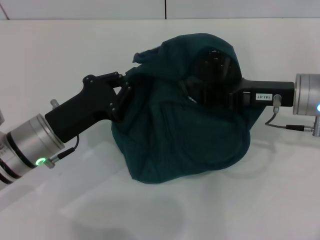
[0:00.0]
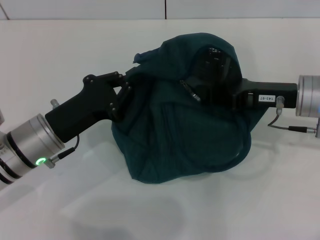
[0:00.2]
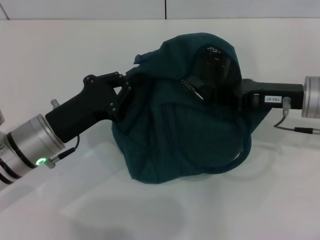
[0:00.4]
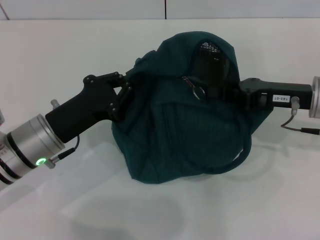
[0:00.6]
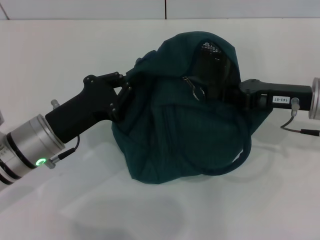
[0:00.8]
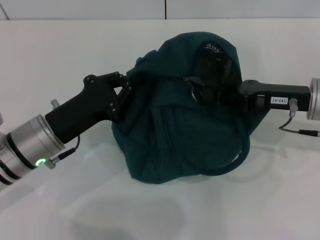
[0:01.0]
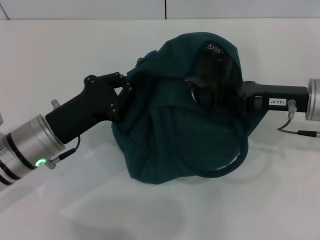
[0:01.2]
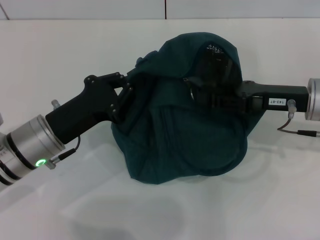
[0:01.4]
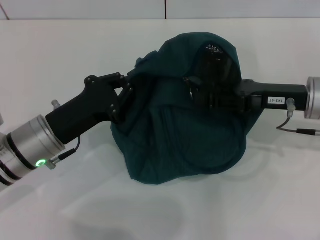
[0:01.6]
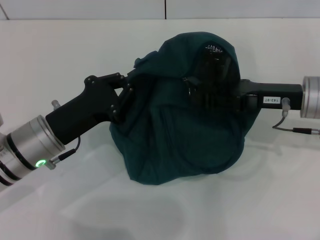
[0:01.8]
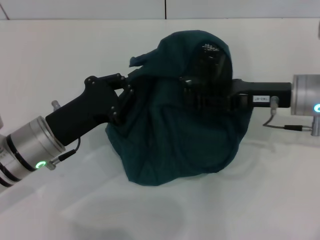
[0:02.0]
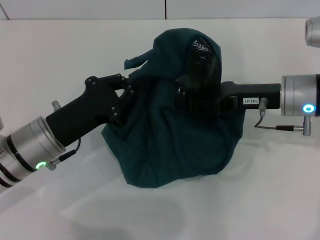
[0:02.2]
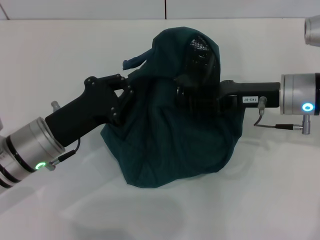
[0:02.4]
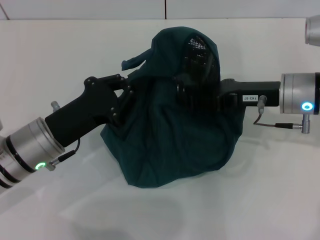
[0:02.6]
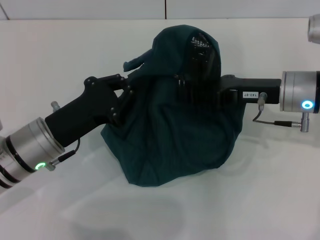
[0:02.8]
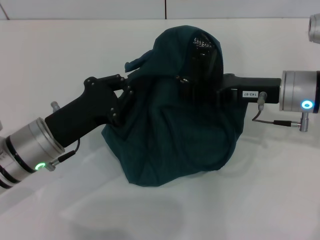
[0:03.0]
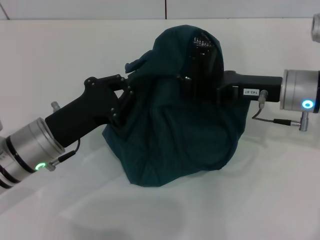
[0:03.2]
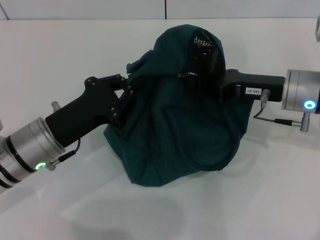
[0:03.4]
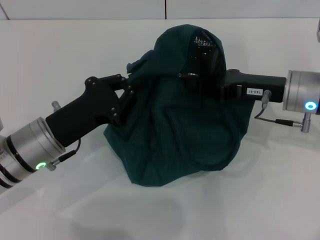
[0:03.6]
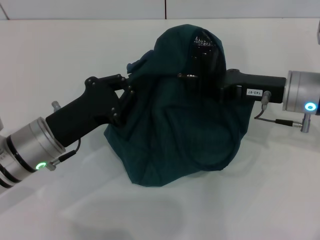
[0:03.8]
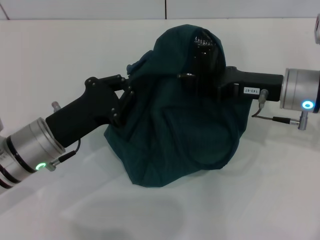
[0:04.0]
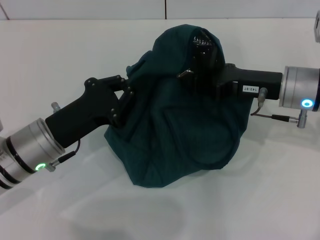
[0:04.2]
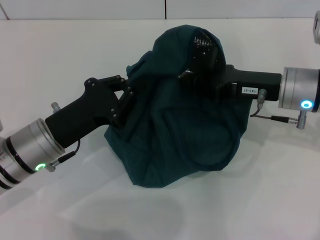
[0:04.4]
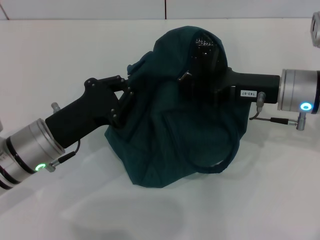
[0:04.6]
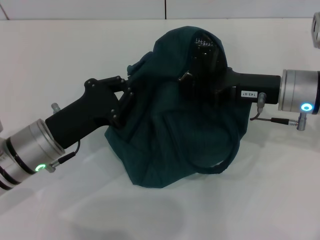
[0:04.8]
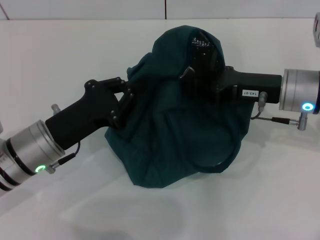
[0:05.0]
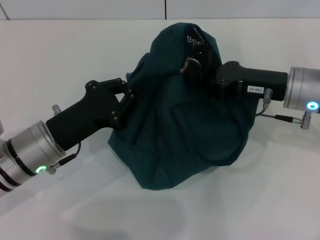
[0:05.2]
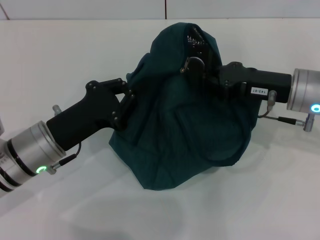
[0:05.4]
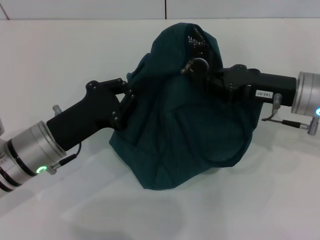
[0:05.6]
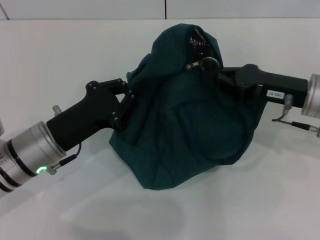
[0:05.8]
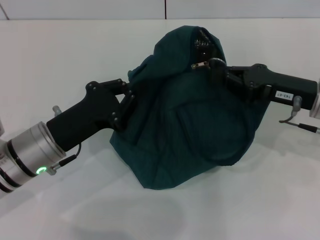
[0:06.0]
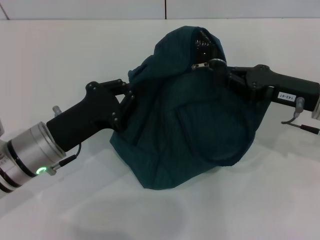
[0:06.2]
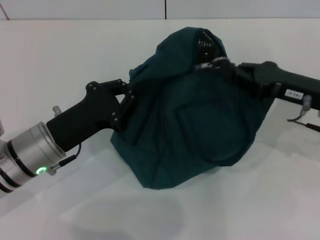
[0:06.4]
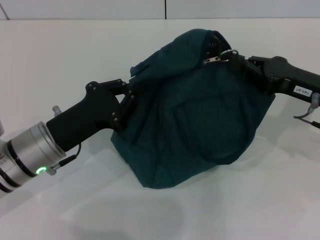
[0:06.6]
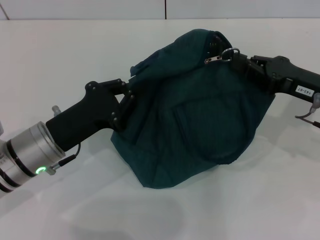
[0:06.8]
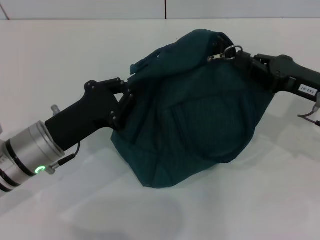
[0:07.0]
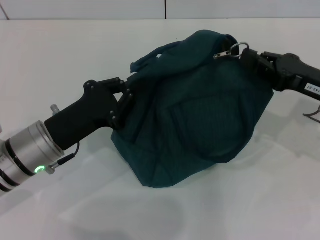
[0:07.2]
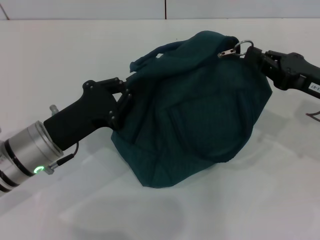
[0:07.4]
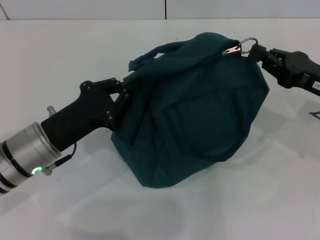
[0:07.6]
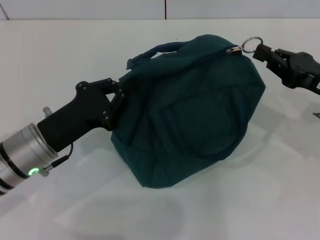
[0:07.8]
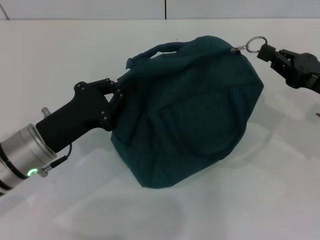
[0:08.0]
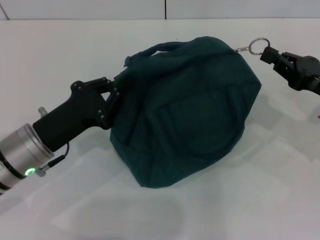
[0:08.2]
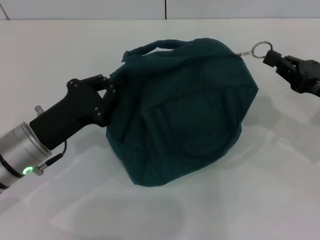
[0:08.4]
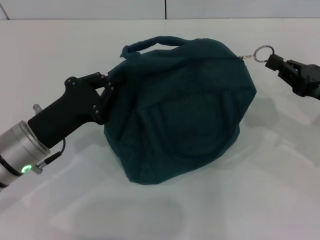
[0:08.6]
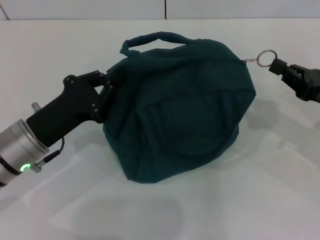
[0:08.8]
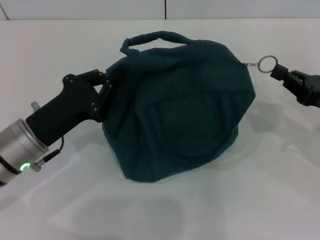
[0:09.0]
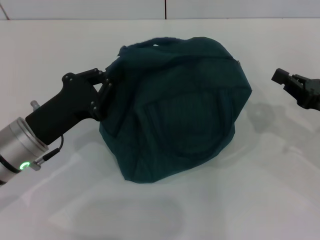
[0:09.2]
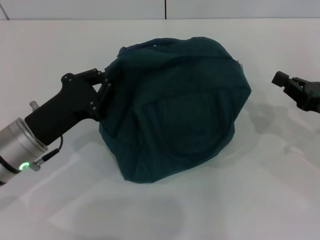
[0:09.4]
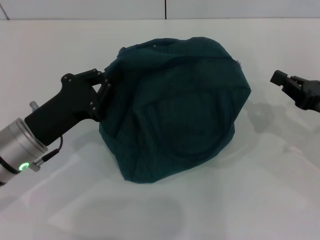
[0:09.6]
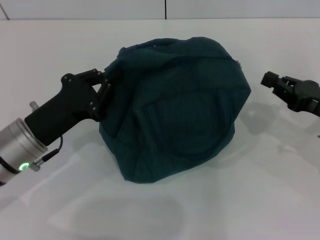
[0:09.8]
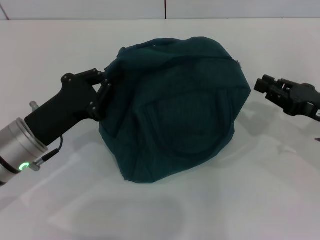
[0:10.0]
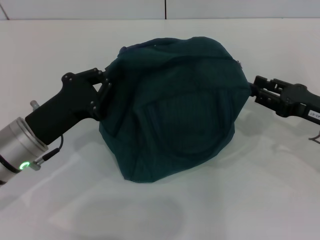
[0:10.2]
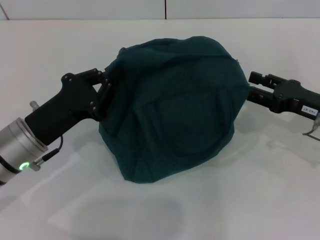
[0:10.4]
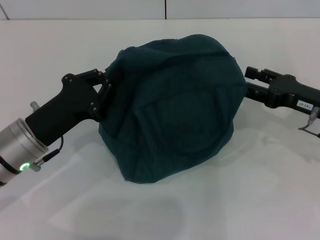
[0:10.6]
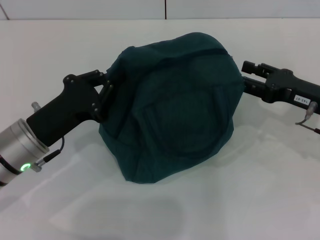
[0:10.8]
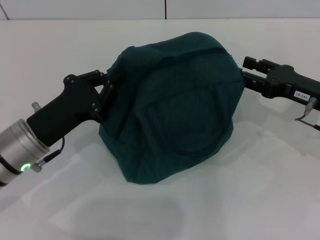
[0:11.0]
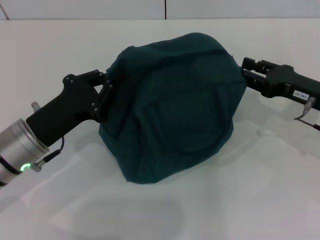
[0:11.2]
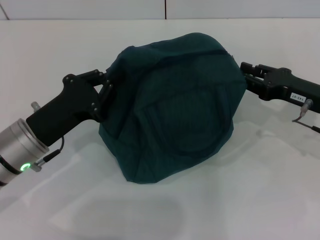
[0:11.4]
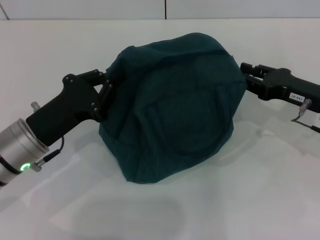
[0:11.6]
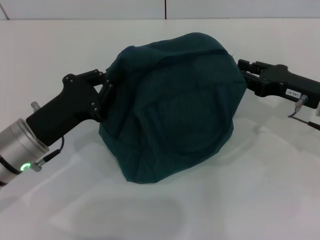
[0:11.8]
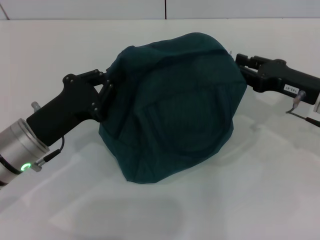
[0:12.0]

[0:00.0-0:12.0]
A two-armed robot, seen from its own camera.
0.0 to 6.0 s: The grippers make only small movements.
6.0 to 7.6 s: The grippers stay close to where they were, moving slightly.
7.6 to 9.0 s: The grippers move only a little.
9.0 to 10.4 s: The right gripper opens its fingers.
10.4 to 12.0 s: There are only small adjustments of the grippers.

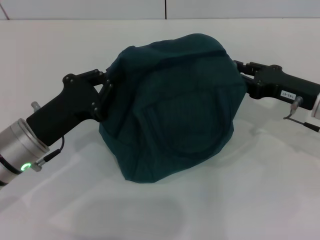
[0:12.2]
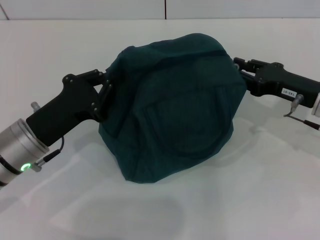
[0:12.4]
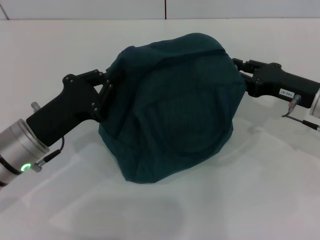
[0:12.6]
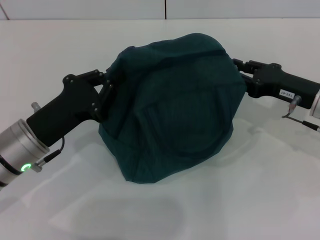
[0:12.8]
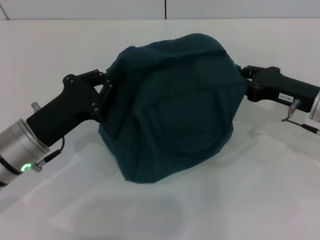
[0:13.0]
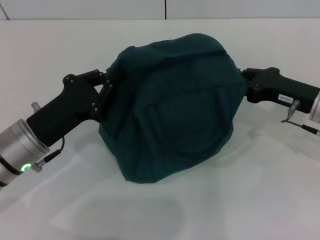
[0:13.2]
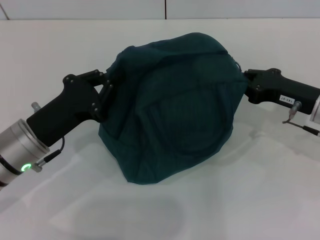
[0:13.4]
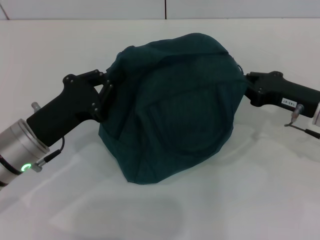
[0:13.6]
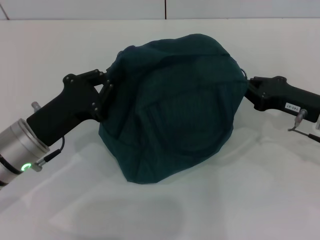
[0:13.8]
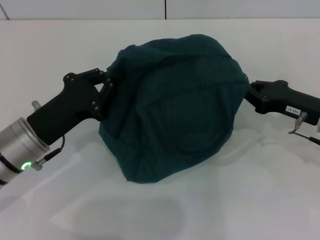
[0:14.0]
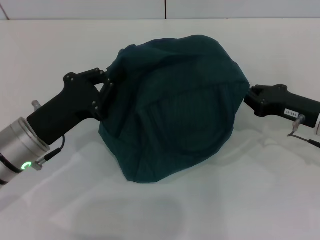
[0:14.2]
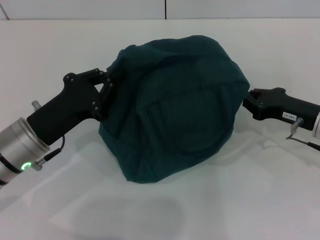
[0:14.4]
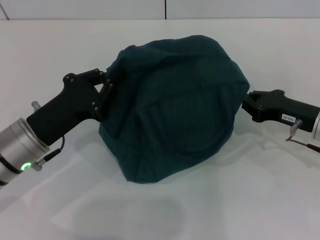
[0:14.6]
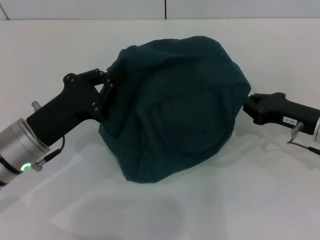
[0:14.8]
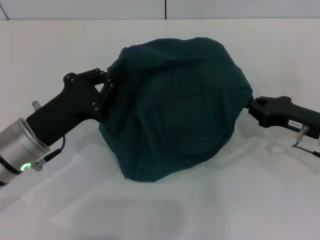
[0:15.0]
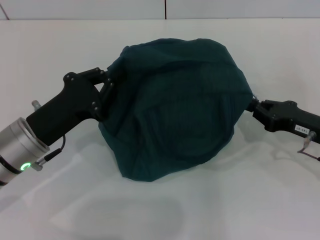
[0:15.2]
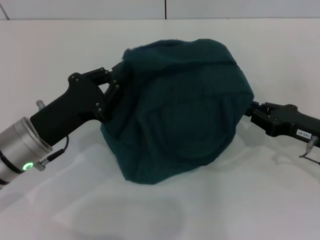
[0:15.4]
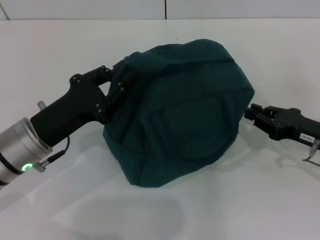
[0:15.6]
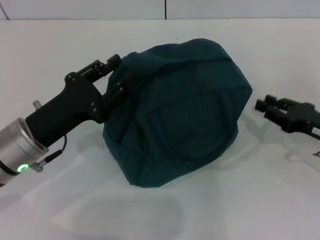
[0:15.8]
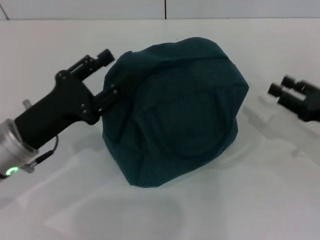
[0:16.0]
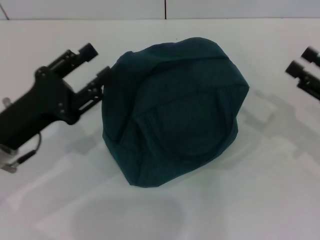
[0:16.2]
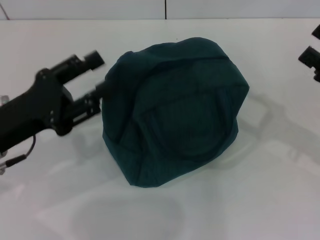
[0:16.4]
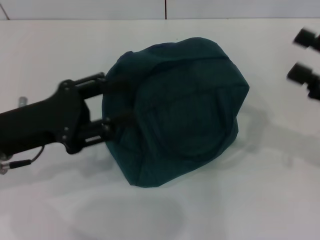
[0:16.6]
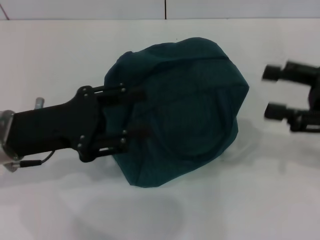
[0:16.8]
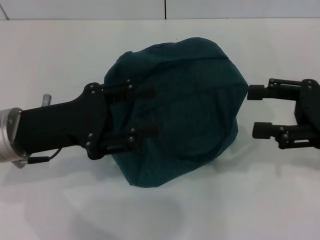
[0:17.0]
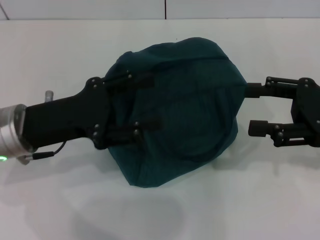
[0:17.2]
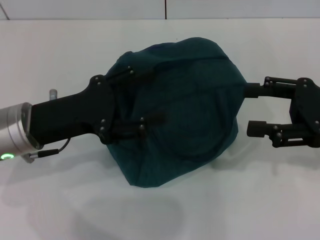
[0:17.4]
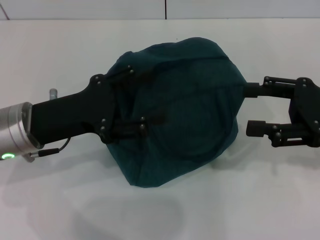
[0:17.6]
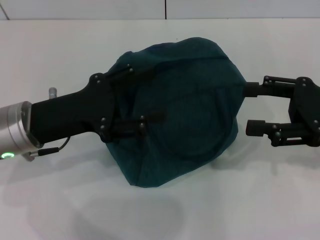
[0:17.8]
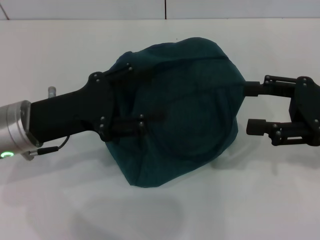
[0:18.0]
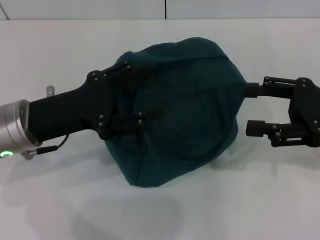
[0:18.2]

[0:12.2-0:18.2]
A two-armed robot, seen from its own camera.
Step, 12.2 to 15.6 s: Zip up the lunch bag with your right hand.
Step, 15.8 to 16.2 s: Hold the lunch bag with your left hand.
12.2 to 13.8 s: The right gripper closes up.
13.8 to 15.2 s: The grippers stay close to where they were, moving slightly.
15.2 to 16.6 s: The left gripper is displaced upward by about 5 cm, and opens. The right gripper shifts some 10 cm upward, and opens up.

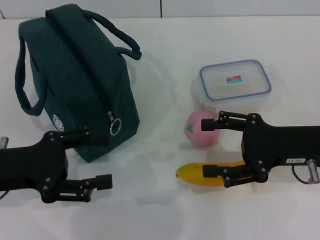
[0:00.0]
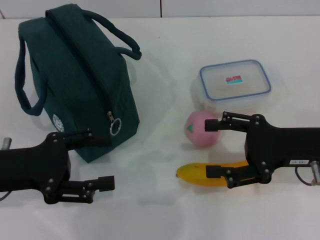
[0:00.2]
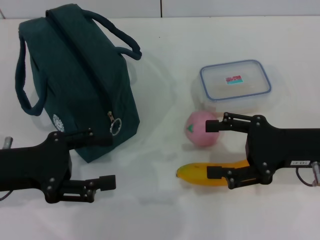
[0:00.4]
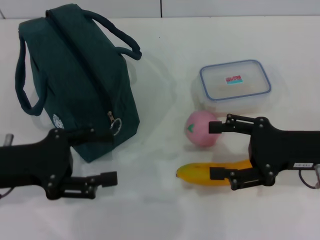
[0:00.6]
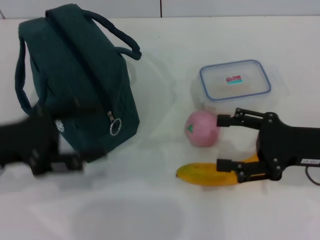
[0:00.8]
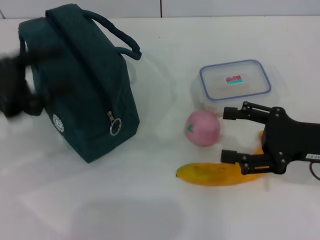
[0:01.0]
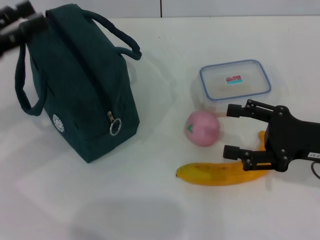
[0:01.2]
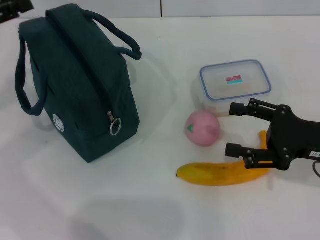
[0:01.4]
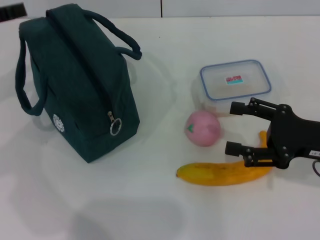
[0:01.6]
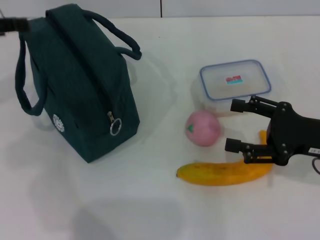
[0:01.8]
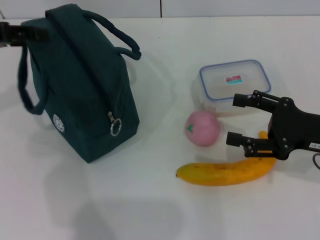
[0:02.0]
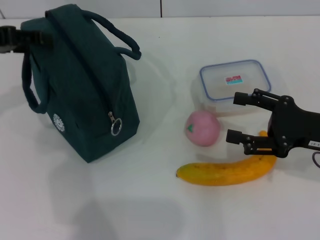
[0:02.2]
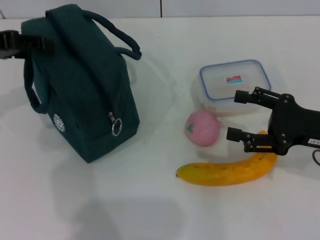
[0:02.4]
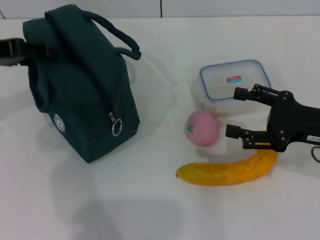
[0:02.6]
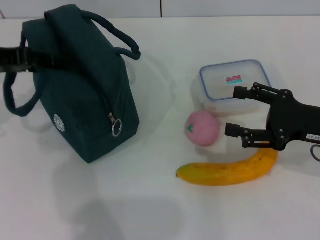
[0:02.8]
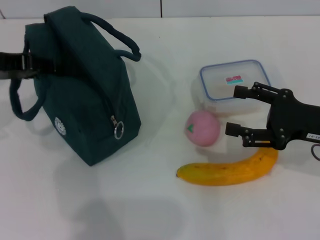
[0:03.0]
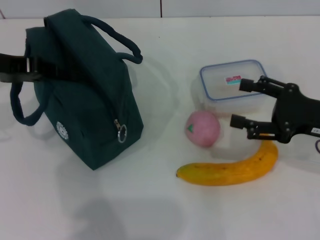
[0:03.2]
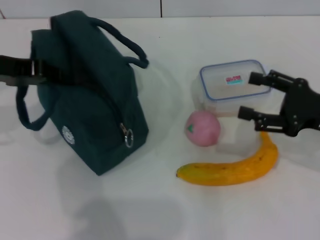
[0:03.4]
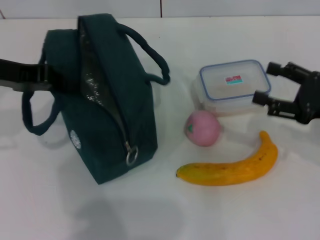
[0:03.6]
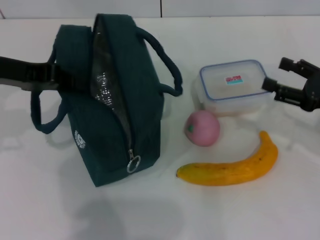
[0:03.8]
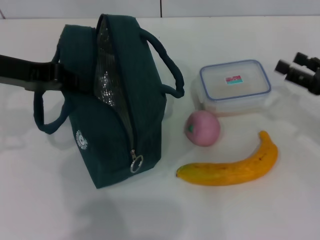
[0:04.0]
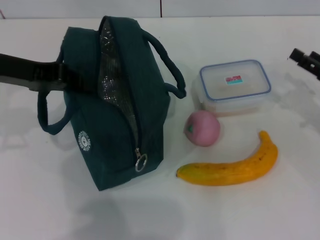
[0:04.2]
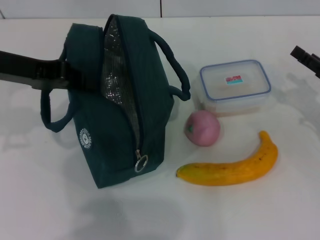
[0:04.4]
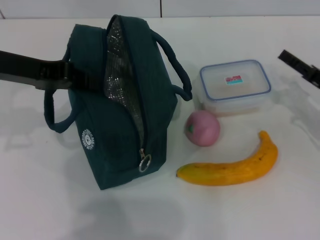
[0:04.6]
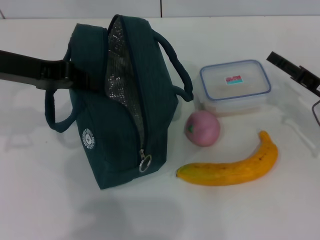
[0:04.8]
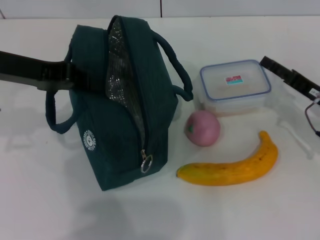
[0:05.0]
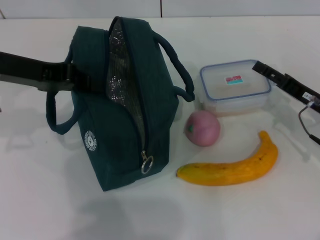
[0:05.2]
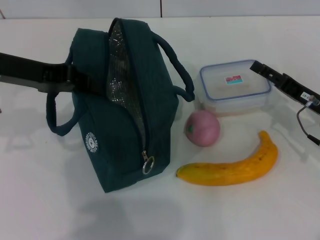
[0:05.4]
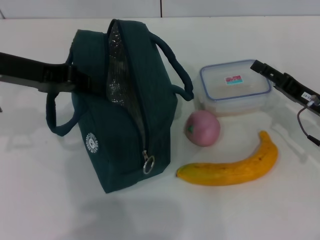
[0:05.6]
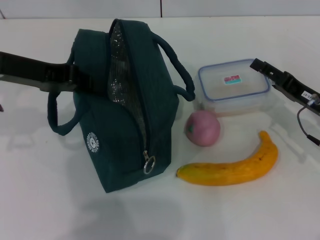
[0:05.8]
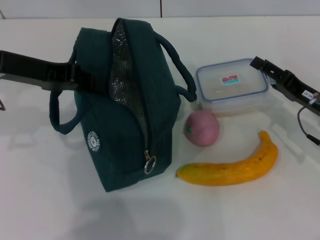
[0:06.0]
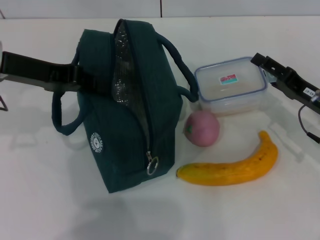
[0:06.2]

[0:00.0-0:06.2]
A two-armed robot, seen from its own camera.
Step, 0.0 to 2.8 s: Hold the lunch bag with your left hand.
0.0 to 1.6 s: The left gripper goes roughly 15 cm forward, upward and to the left.
1.6 to 3.2 s: The left gripper is displaced to the right by some 5 cm, and closes.
3.2 to 4.6 s: The right gripper heads downward, covering approximately 5 cm; the left gripper closes.
4.6 to 6.2 s: The grippers stay close to where they were, moving slightly.
